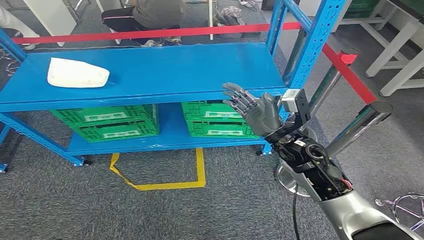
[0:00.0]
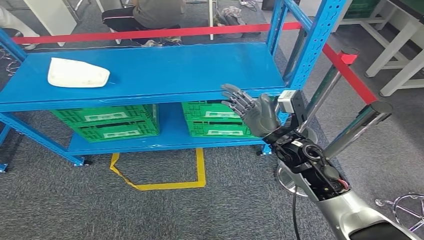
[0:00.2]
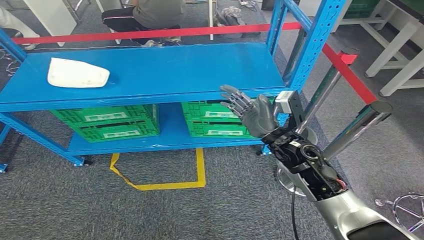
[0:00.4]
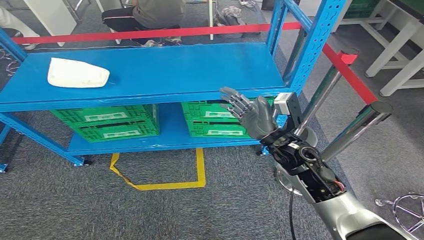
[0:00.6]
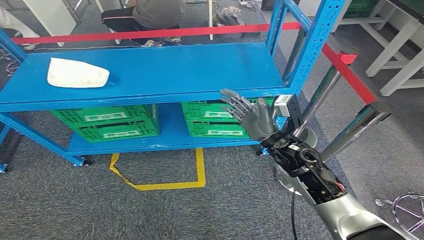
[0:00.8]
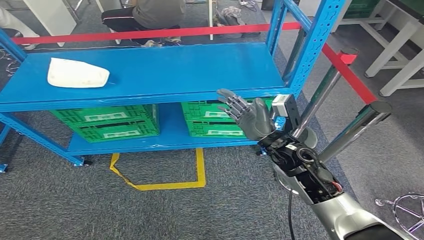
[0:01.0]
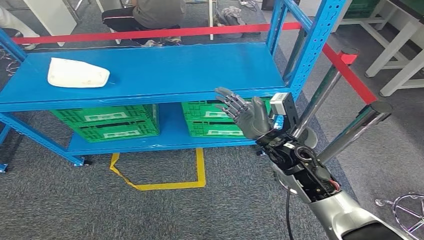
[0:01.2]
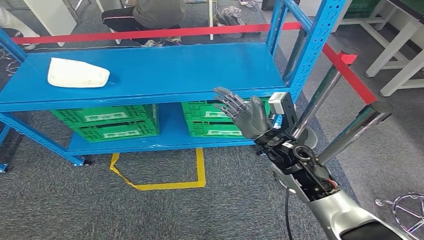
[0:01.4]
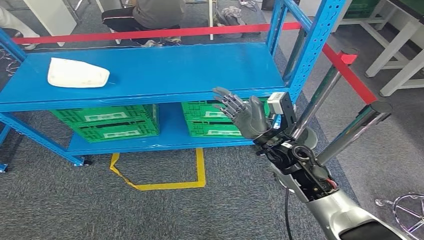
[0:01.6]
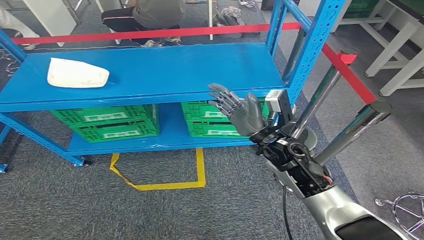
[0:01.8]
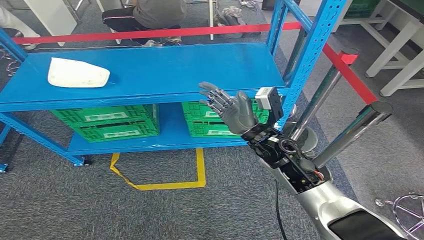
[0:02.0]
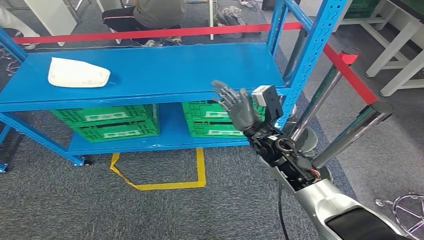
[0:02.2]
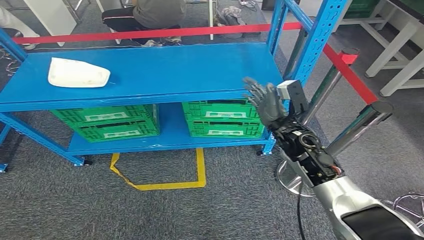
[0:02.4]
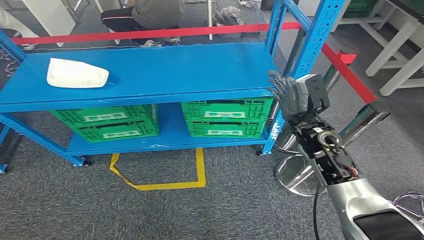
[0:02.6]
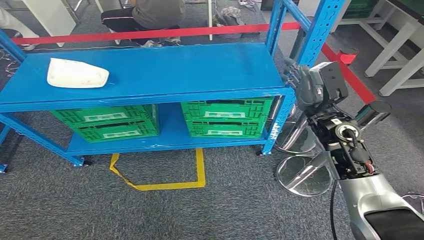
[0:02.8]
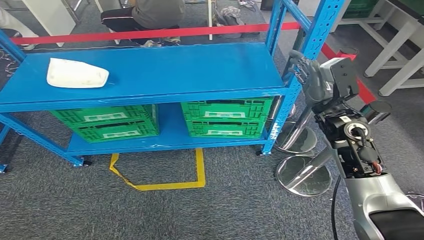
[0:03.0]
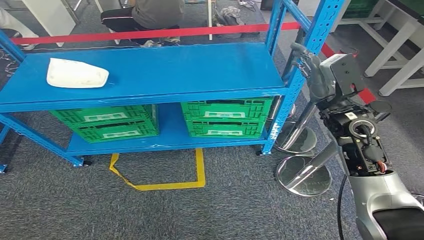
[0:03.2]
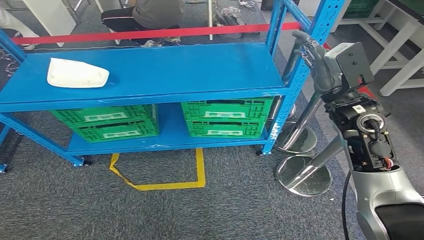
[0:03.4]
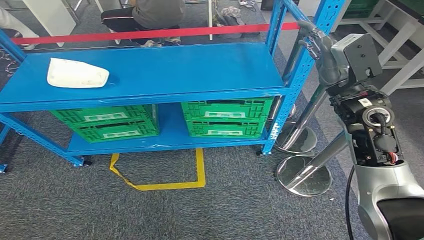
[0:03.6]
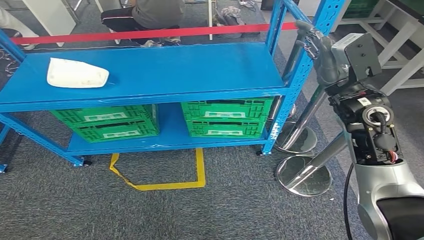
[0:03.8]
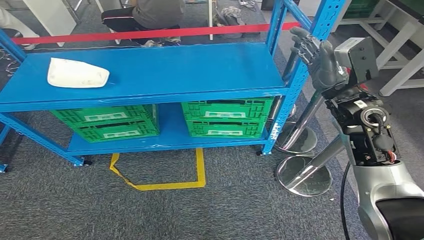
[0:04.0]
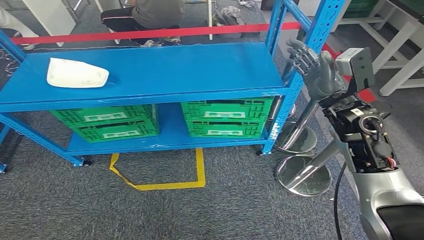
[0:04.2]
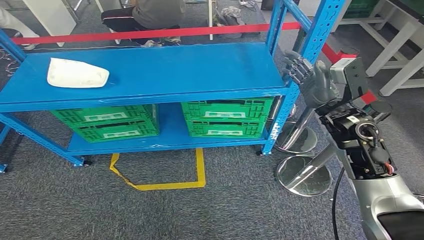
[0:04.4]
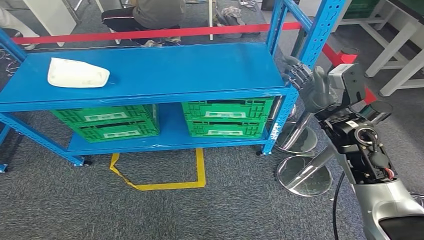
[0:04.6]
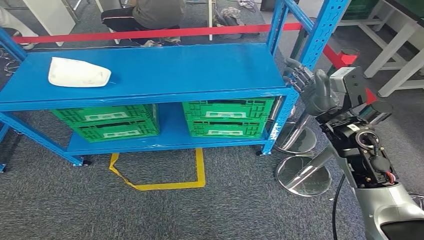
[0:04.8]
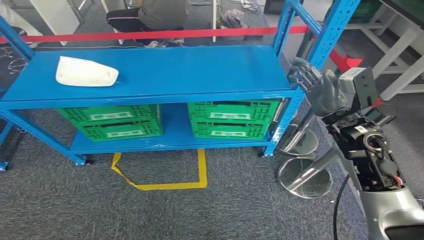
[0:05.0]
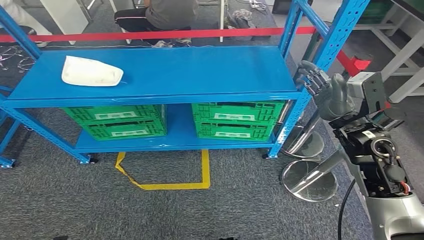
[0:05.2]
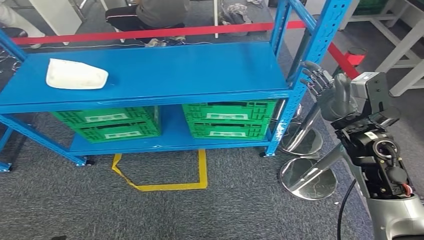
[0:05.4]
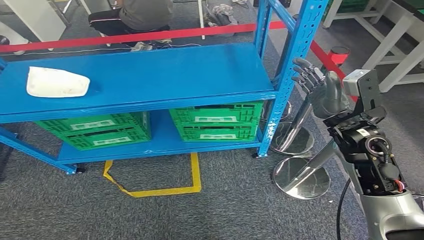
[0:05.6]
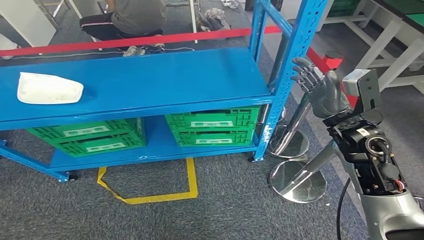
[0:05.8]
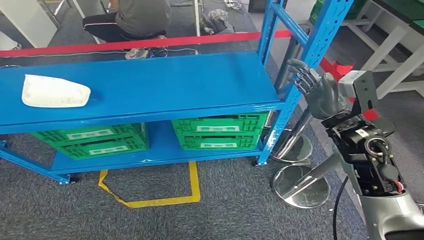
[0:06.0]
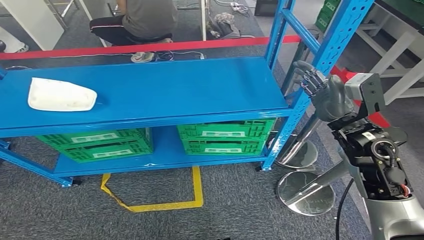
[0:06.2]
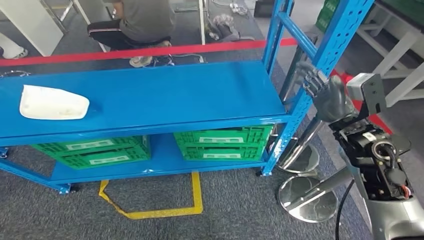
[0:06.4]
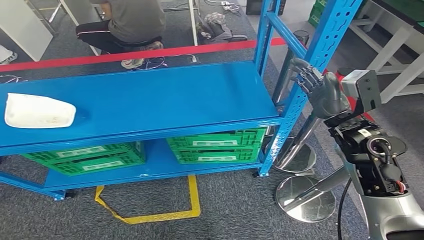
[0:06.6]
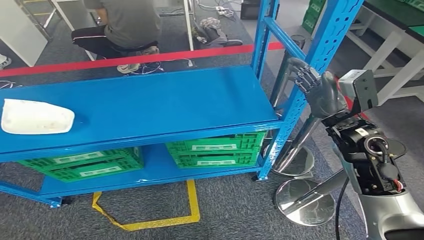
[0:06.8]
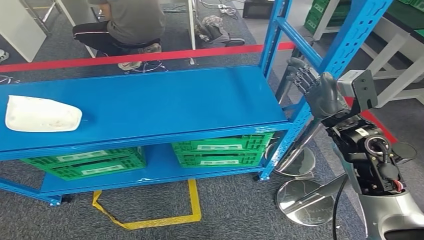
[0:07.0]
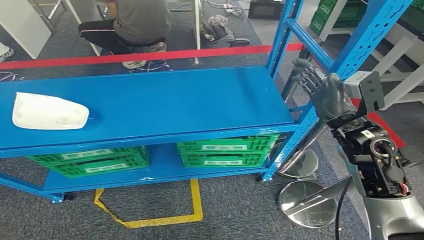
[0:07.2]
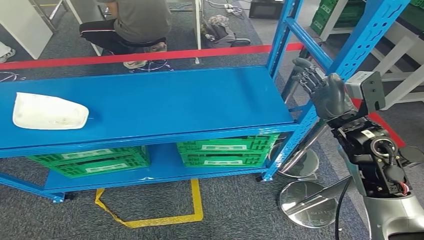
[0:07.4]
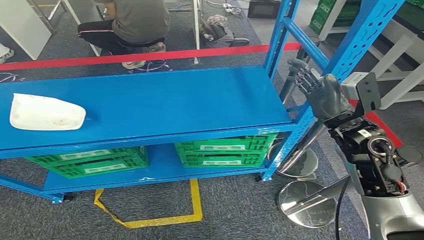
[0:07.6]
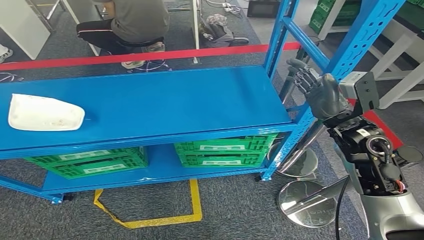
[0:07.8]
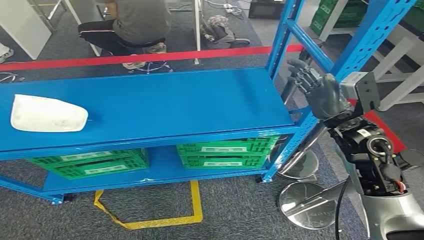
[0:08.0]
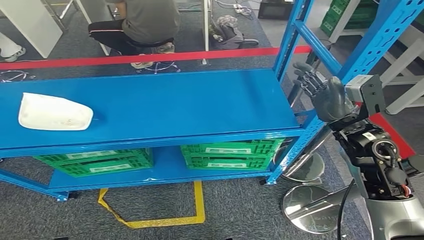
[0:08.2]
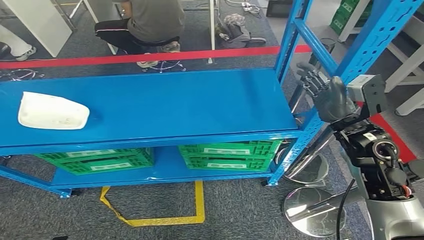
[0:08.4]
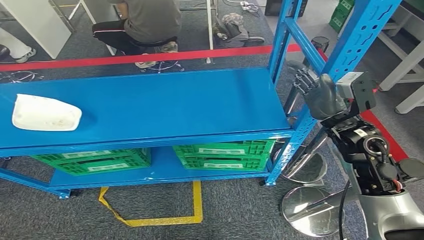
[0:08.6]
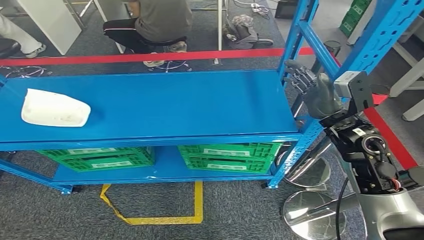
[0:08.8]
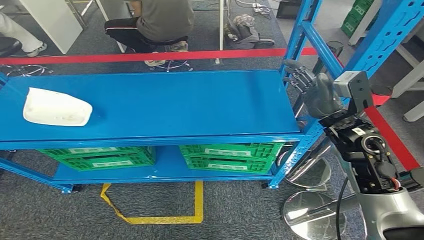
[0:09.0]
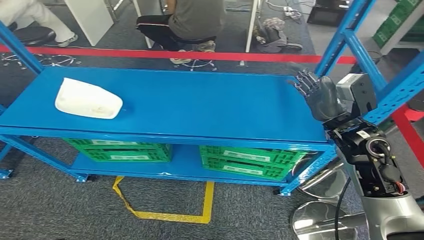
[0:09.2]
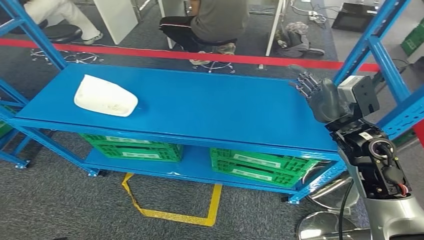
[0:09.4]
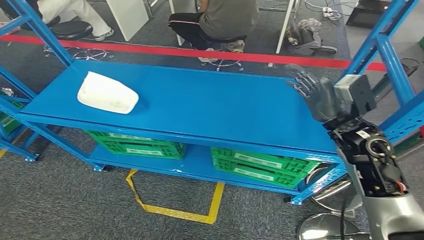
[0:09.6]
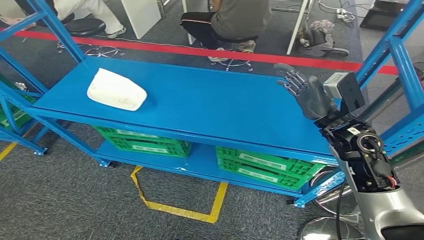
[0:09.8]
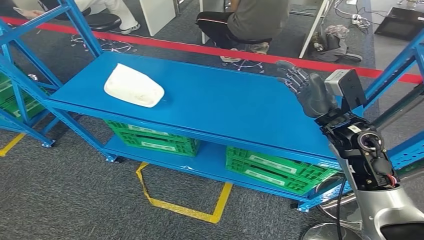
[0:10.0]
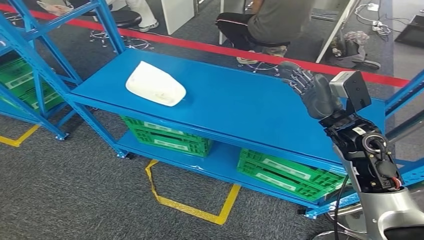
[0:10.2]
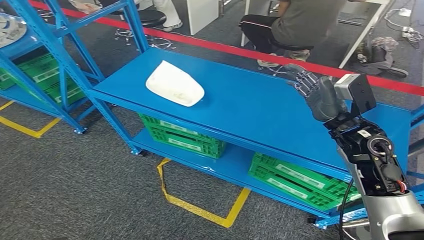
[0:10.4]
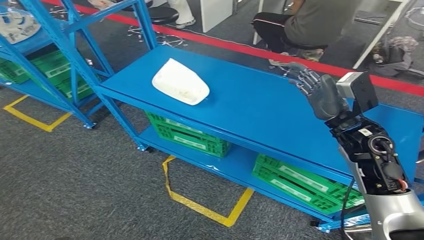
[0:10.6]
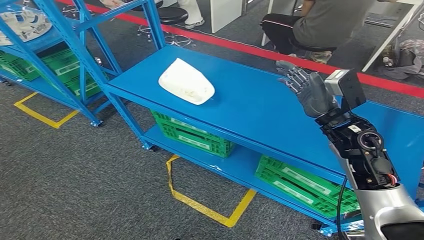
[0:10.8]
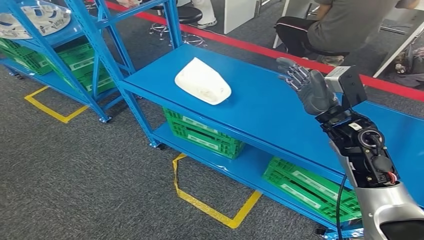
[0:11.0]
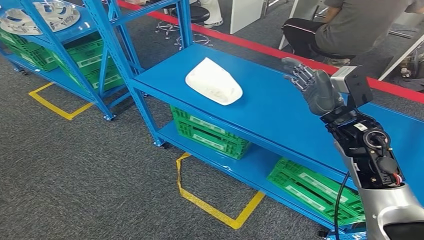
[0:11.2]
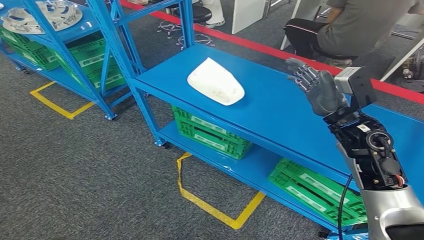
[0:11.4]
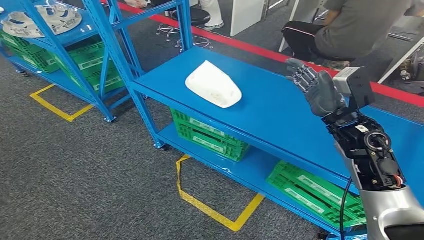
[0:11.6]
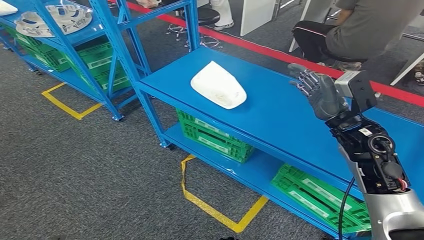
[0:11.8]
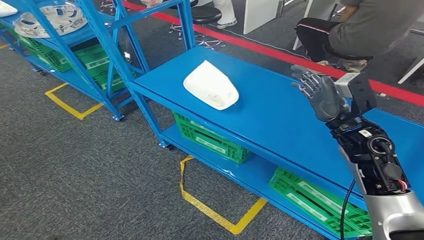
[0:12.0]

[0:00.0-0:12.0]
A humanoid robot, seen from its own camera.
0:01.6 to 0:03.0: The right hand moves to the right and upward, about 15 cm.

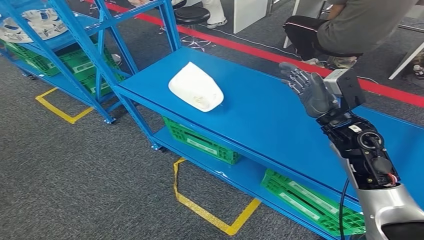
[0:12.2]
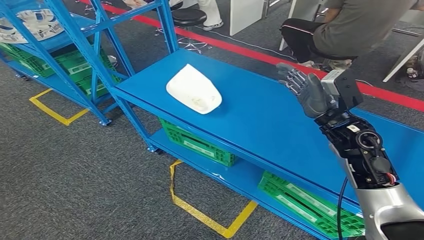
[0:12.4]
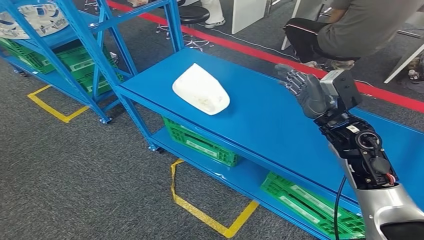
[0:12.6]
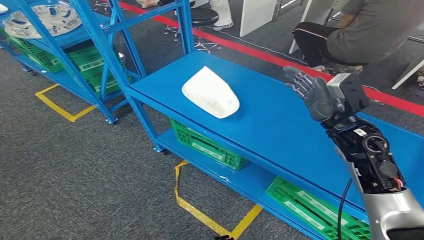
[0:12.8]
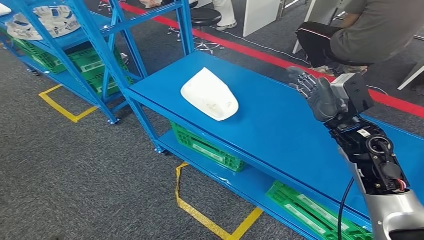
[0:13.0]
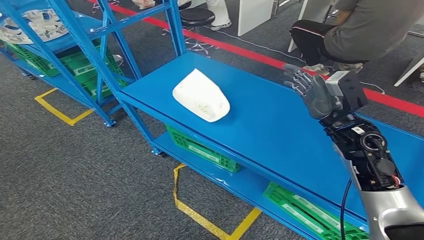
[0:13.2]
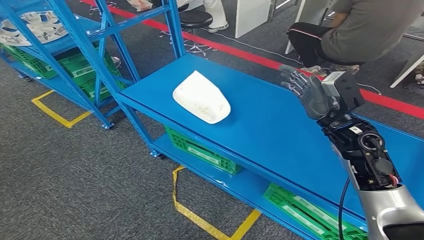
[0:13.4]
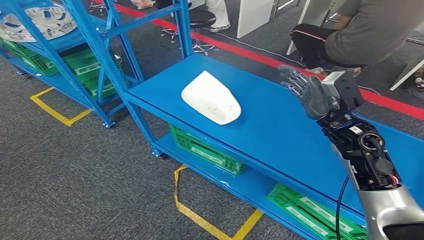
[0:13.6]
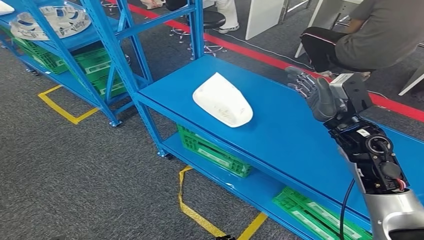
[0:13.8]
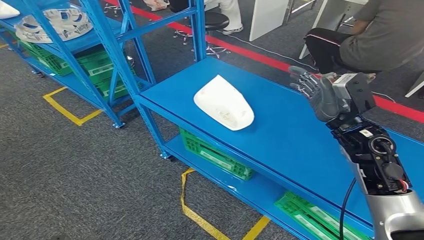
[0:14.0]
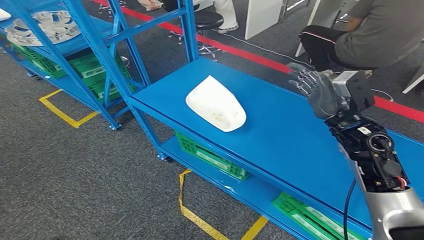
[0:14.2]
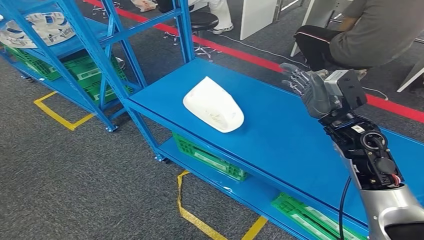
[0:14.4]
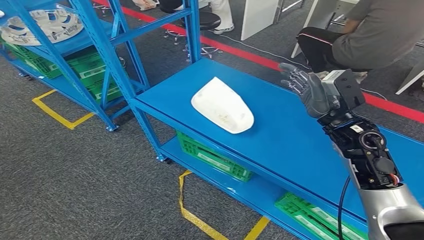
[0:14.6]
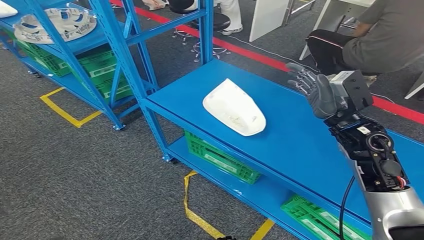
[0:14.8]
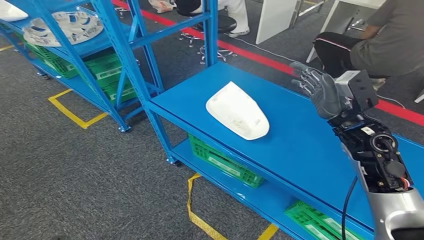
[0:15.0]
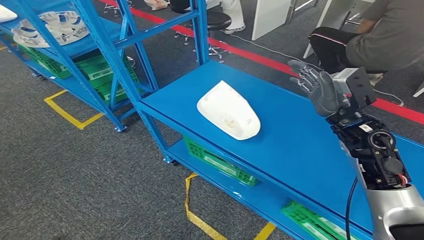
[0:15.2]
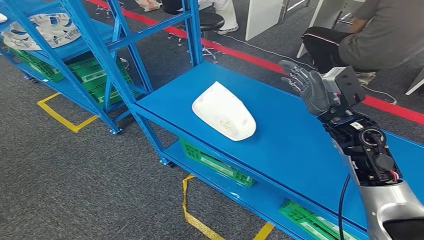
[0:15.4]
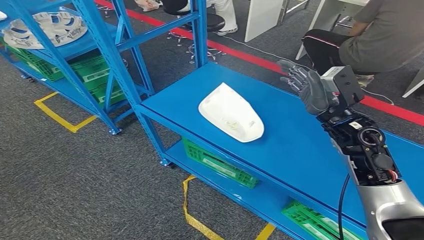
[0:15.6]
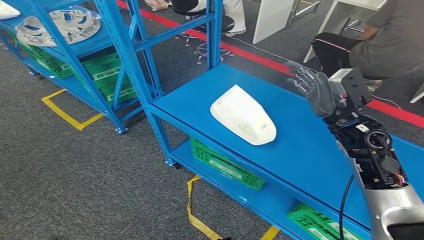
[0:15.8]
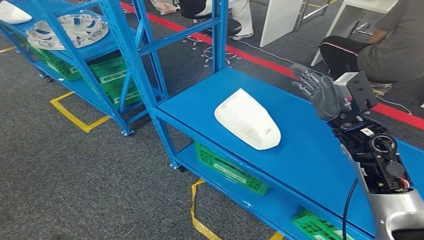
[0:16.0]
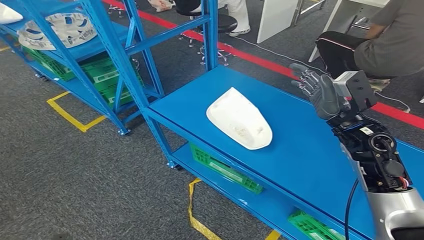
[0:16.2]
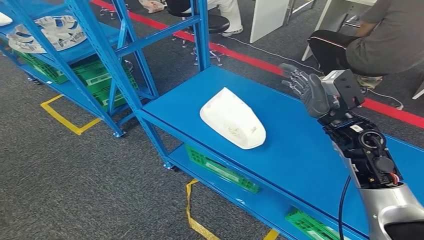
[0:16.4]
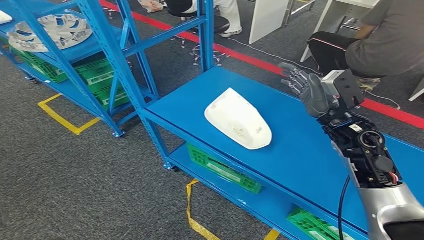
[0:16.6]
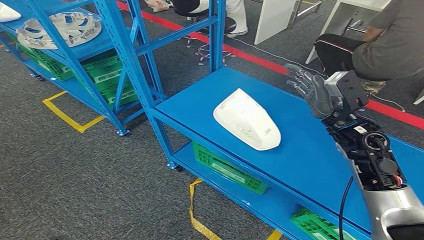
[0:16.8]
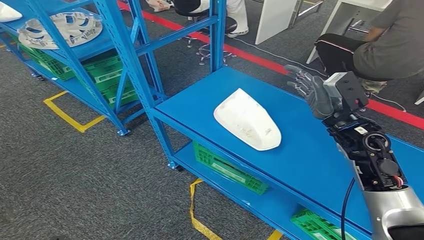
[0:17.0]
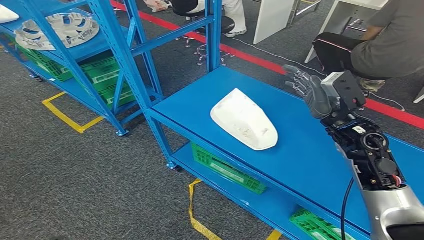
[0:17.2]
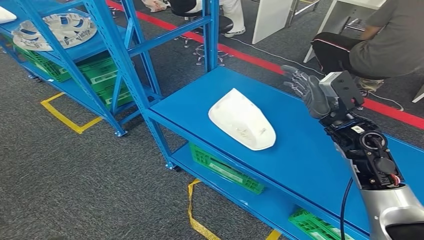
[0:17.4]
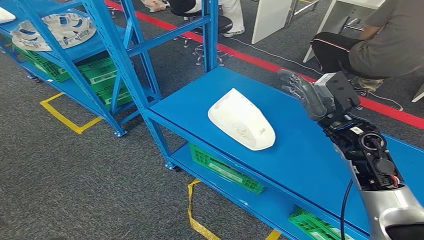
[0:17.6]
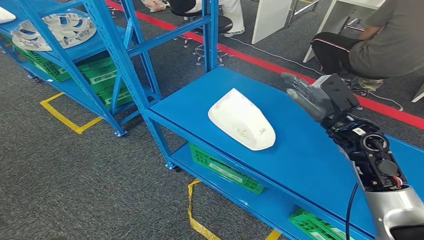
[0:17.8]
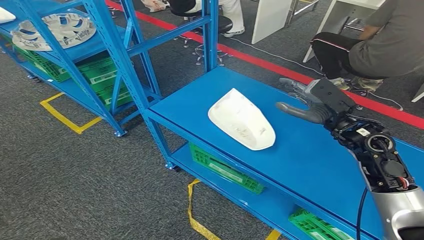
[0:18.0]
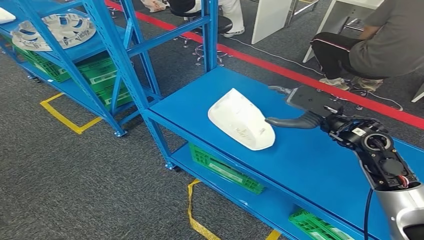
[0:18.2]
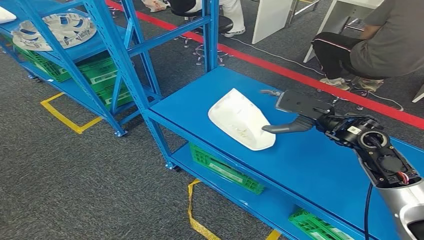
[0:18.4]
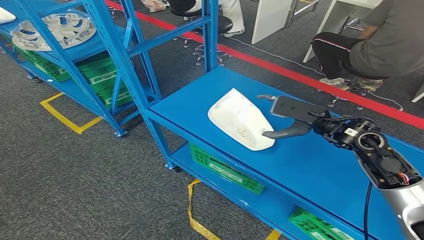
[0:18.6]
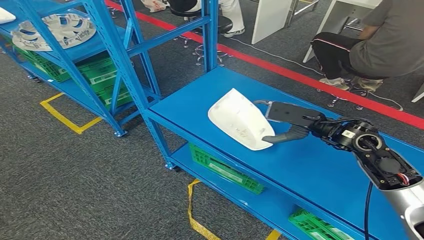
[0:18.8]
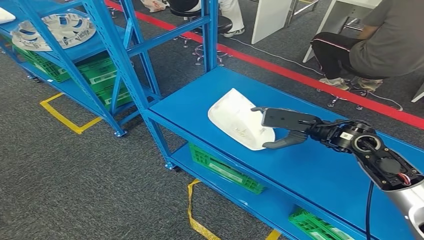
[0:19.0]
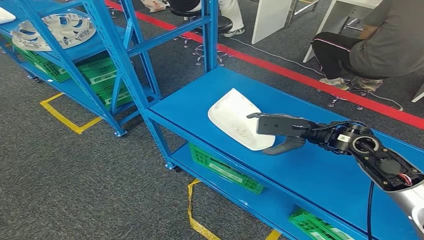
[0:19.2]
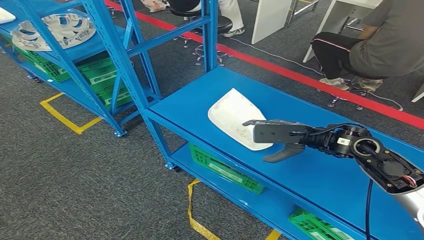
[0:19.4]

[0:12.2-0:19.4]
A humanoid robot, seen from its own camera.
0:16.6 to 0:18.0: The hands make only small movements.
